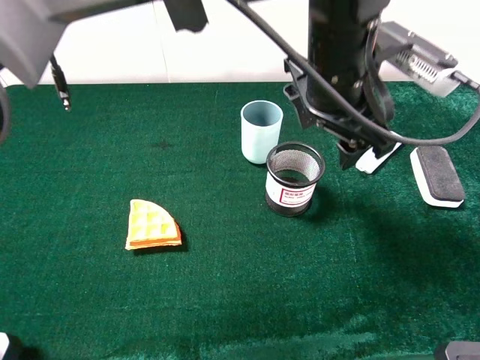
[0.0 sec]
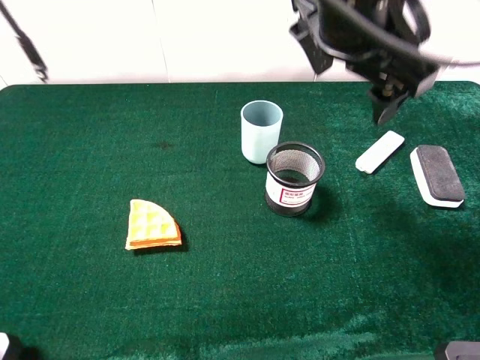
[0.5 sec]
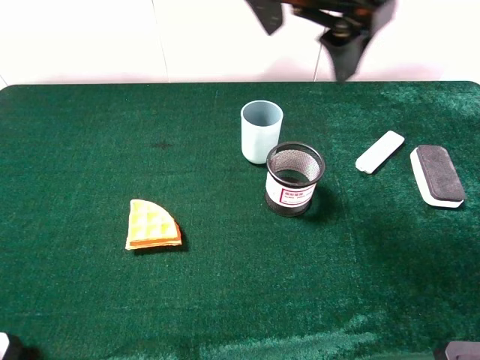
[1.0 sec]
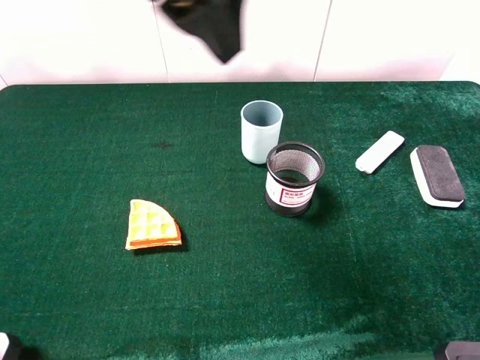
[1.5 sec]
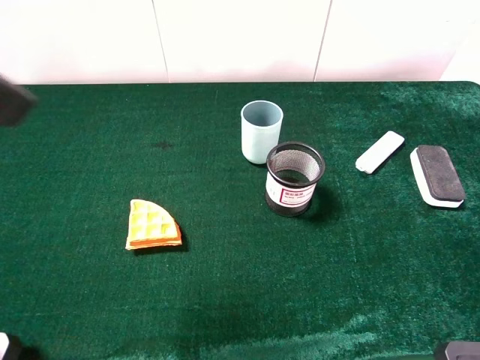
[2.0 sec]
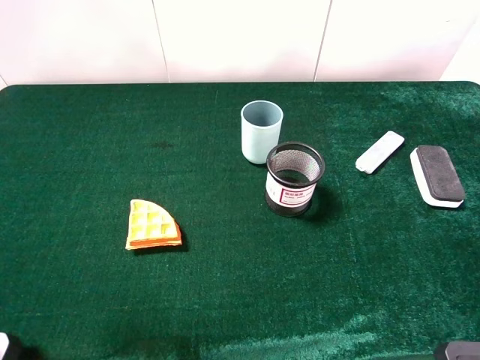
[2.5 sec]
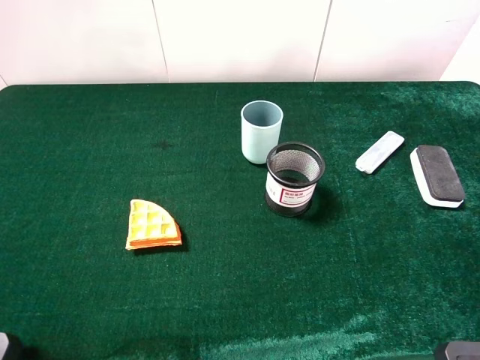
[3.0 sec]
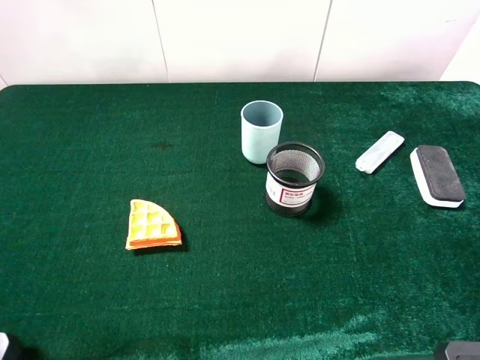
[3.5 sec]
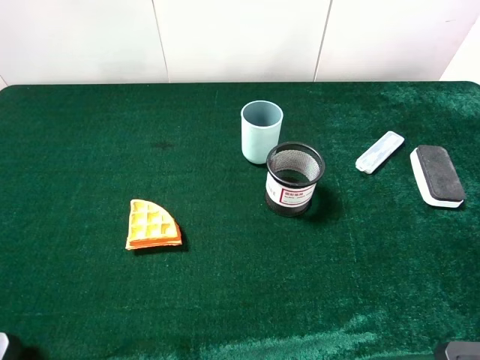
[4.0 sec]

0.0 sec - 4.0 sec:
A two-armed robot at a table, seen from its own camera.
Task of the whole recording: the gripper move the object.
0.0 sec - 2.0 sec: The left gripper moves to the left, backward and upward, approximately 40 cm.
2.0 sec - 4.0 sec: The left gripper travels downward, to the left and backward by some 20 cm.
